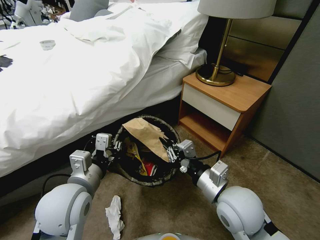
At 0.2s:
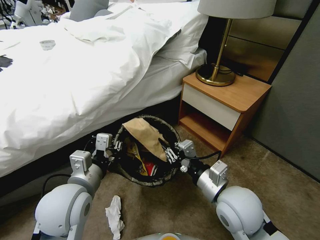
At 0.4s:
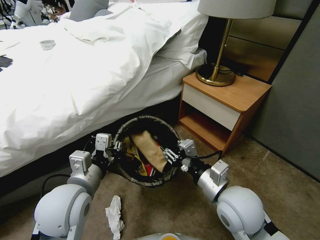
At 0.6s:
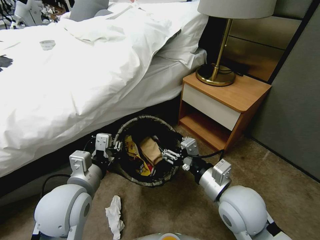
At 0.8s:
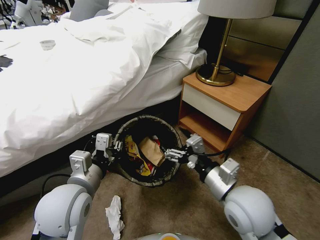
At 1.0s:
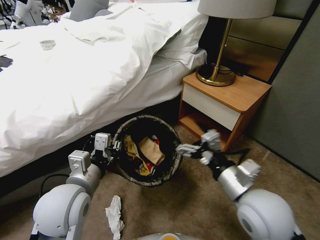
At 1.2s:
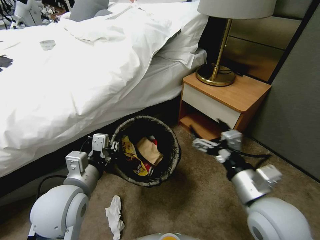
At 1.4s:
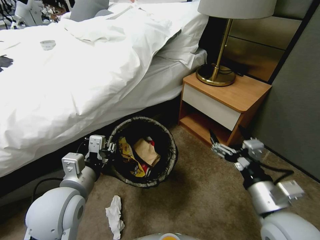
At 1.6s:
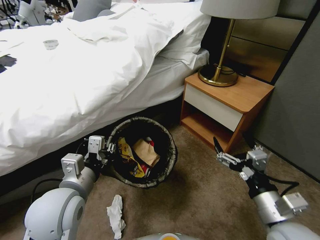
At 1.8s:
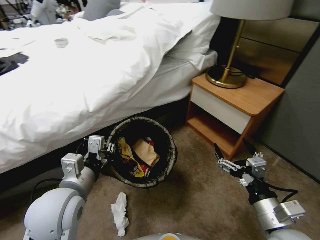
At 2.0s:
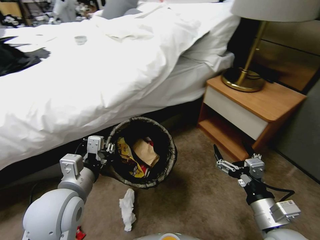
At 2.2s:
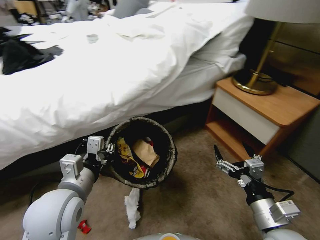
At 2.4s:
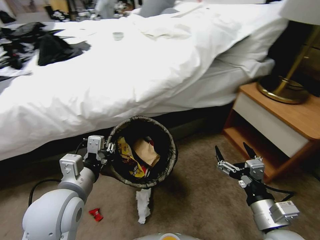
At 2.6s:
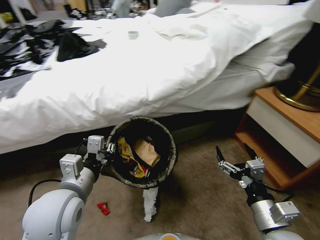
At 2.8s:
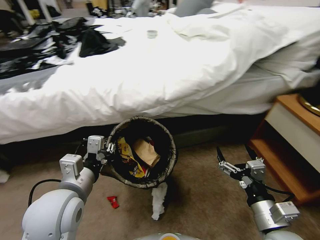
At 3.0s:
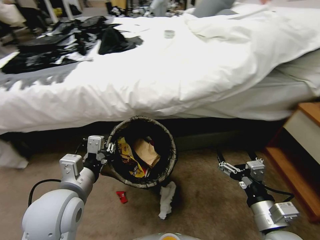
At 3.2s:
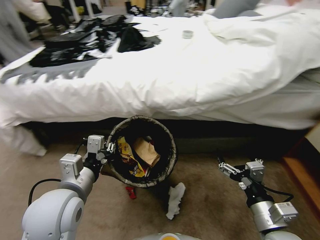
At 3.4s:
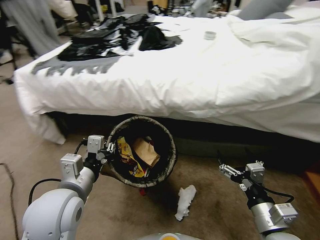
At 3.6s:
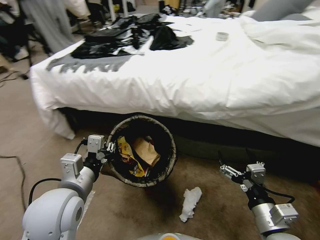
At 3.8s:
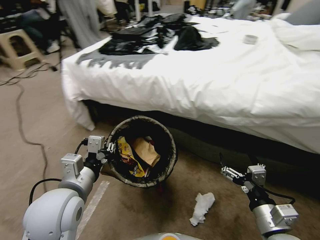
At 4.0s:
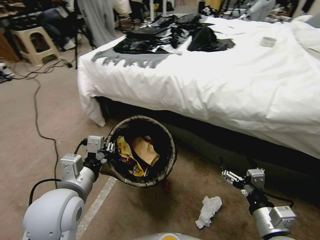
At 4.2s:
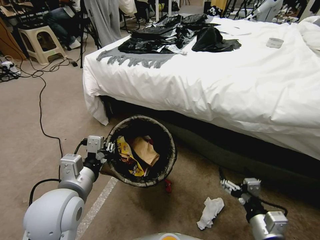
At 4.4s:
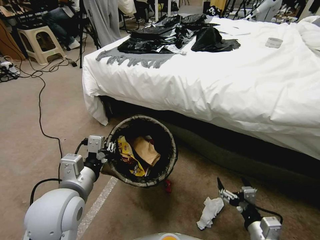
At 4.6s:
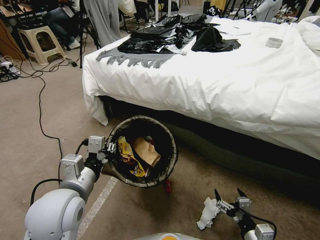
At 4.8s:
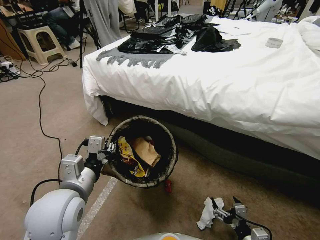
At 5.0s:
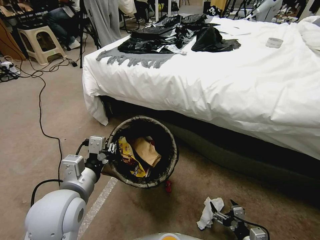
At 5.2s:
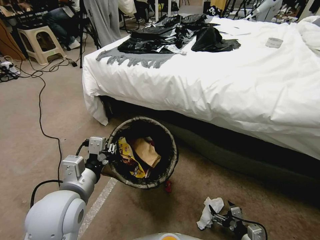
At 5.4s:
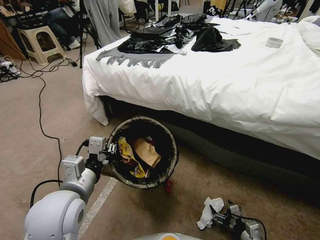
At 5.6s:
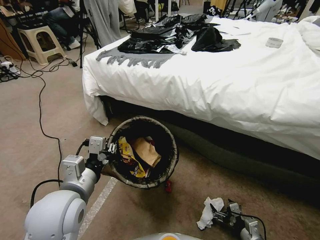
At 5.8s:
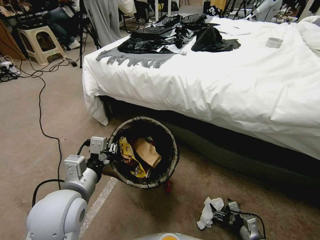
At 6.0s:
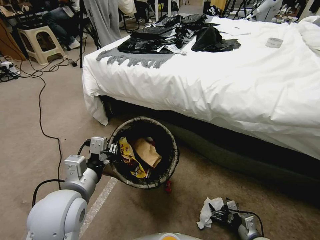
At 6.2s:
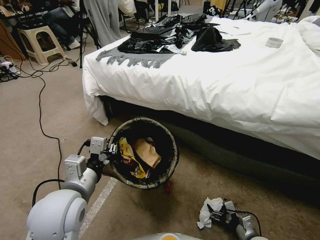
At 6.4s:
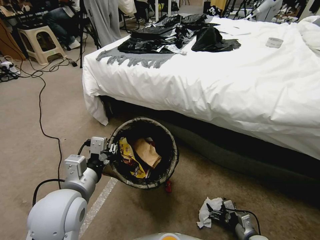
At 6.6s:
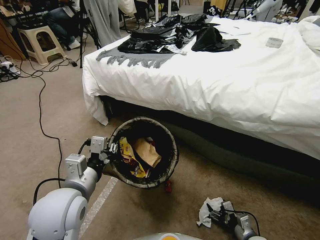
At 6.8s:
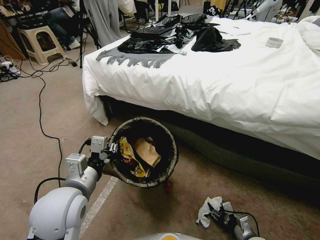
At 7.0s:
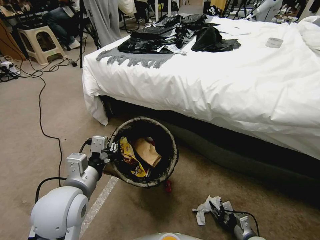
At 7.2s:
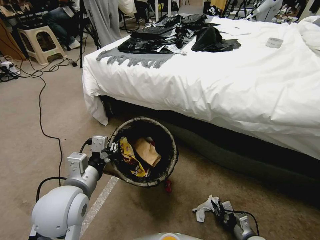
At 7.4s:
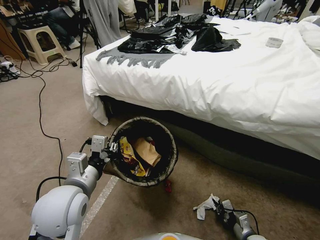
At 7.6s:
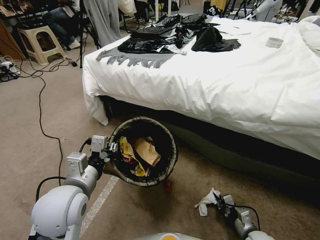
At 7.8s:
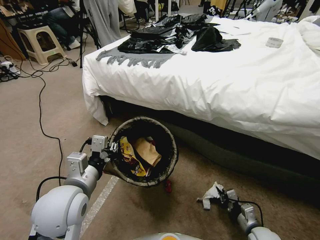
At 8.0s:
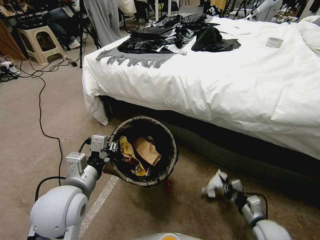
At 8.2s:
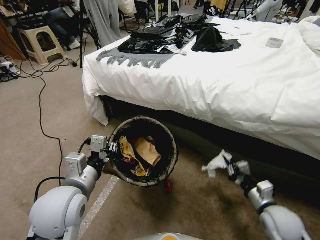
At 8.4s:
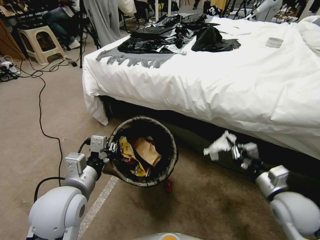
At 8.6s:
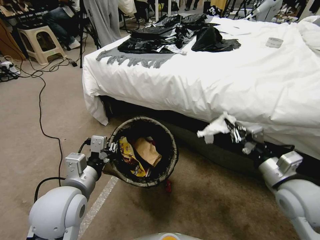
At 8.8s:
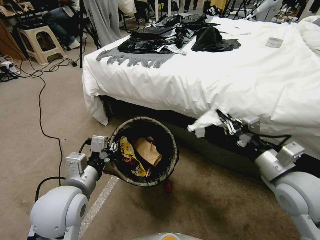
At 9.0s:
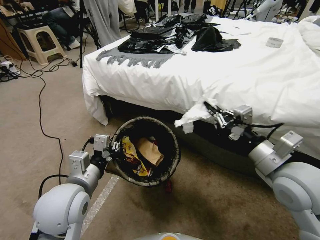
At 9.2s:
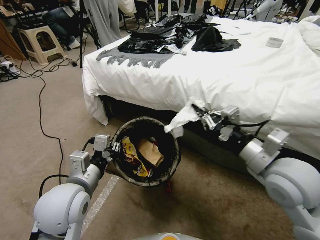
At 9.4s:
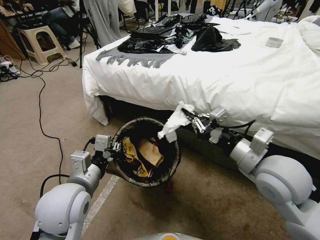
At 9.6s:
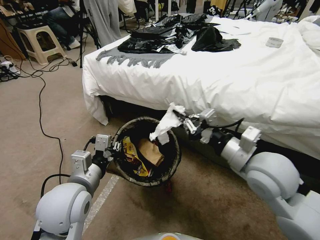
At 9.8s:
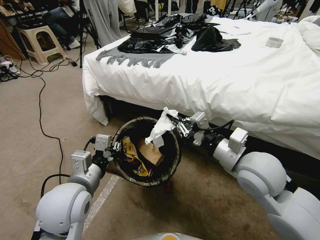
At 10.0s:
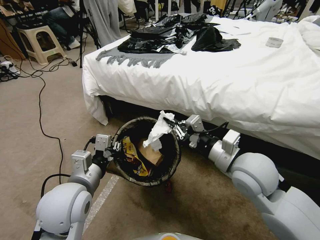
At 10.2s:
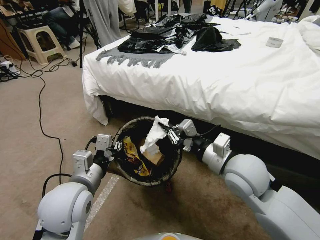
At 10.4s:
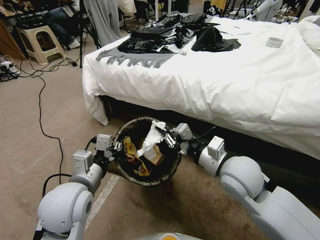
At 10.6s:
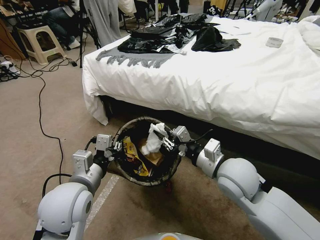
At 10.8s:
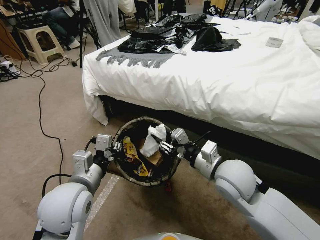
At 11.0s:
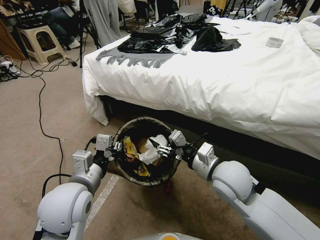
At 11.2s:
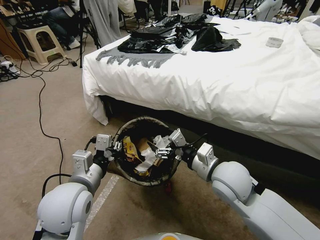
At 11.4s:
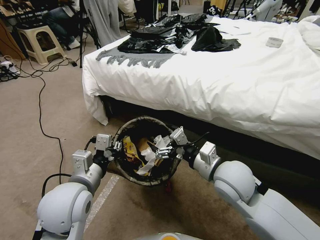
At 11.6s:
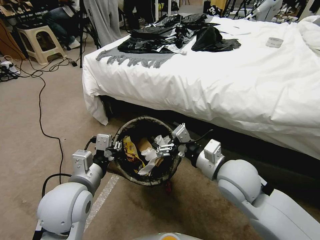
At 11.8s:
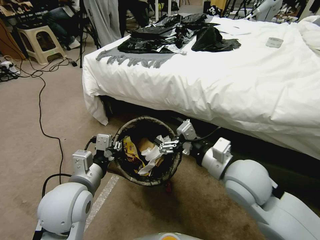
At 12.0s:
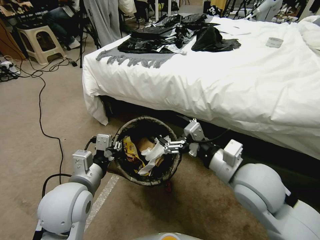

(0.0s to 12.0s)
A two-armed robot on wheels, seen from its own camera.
Task of the whole recording: Pick up the trash bin, then pick up the garbage from the floor and place it into the trash bin.
0.0s - 1.6s: The right gripper shifts about 15 cm to the right and backward, and opens up.
3.0s - 4.4s: The right gripper travels downward by some 10 cm.
4.4s - 6.0s: The right gripper goes roughly 15 cm downward.
6.0s - 7.6s: The right gripper closes.
7.6s - 9.0s: The right gripper heads upward, covering some 40 cm.
9.0s - 10.4s: The right gripper goes about 10 cm to the left.
10.4s - 12.0s: The right gripper opens.

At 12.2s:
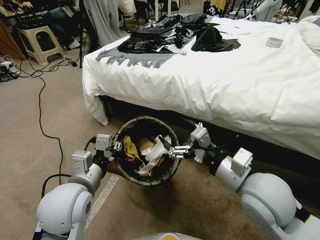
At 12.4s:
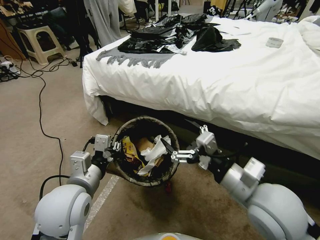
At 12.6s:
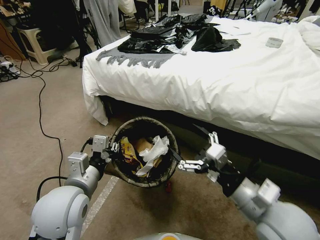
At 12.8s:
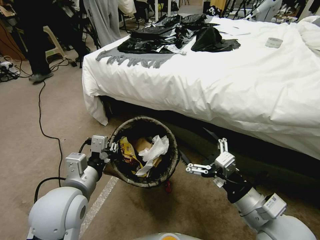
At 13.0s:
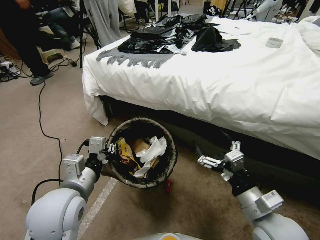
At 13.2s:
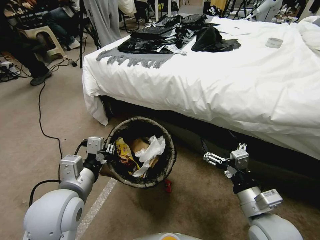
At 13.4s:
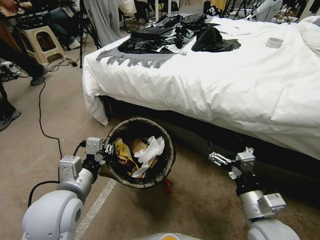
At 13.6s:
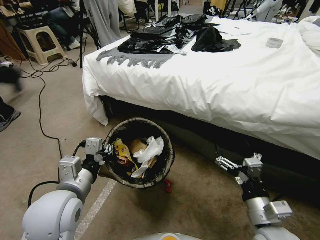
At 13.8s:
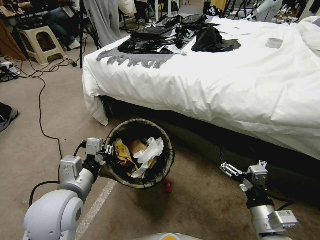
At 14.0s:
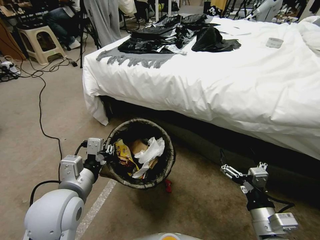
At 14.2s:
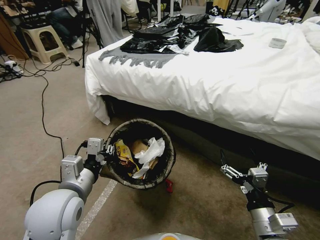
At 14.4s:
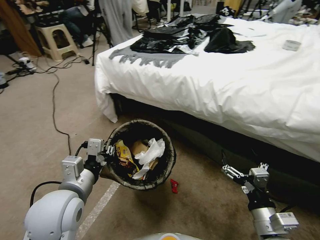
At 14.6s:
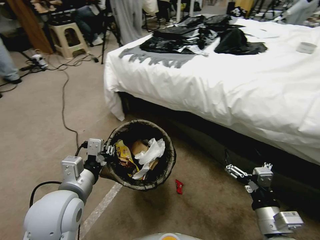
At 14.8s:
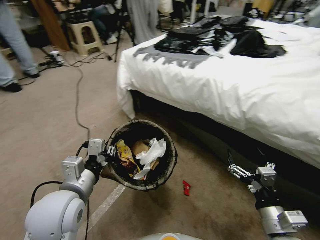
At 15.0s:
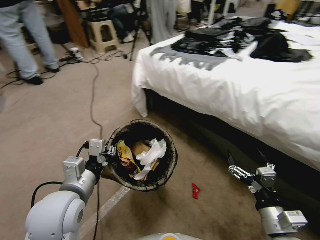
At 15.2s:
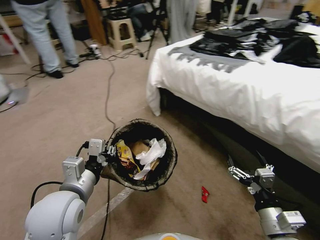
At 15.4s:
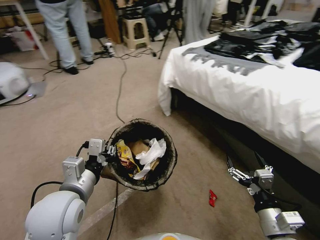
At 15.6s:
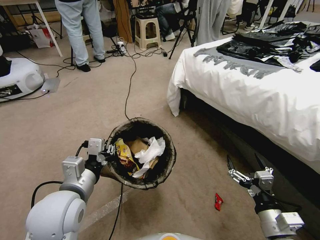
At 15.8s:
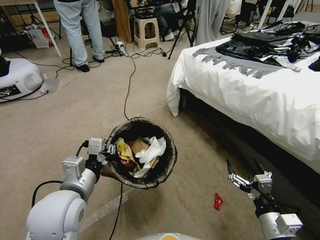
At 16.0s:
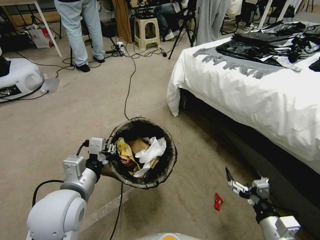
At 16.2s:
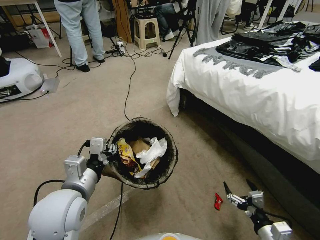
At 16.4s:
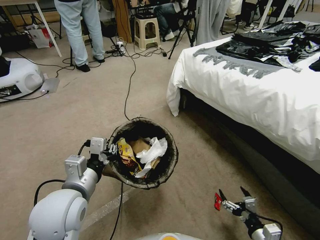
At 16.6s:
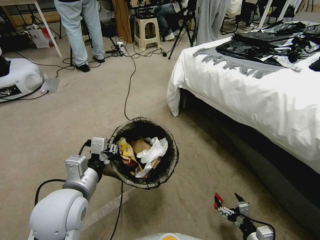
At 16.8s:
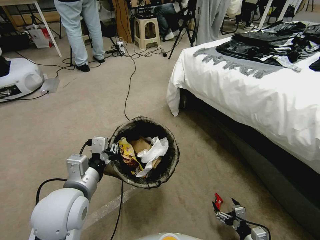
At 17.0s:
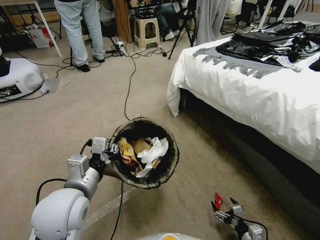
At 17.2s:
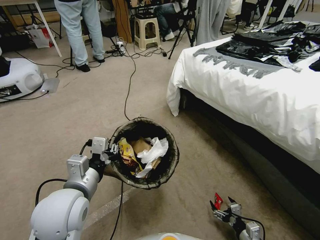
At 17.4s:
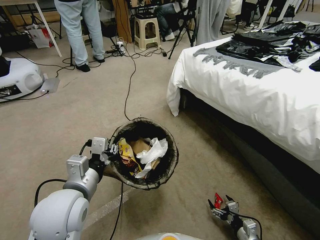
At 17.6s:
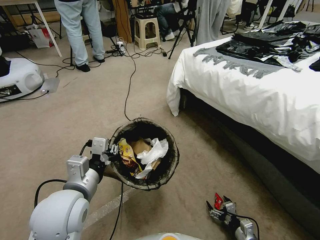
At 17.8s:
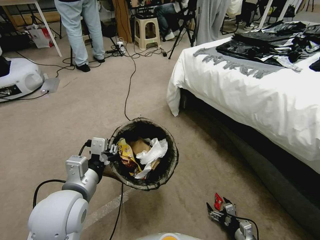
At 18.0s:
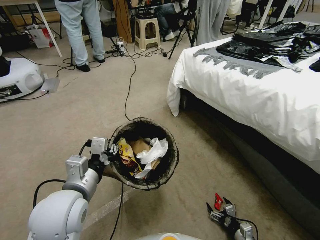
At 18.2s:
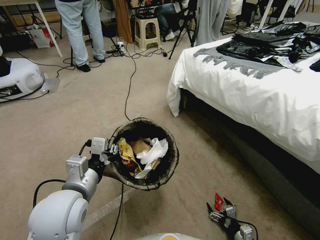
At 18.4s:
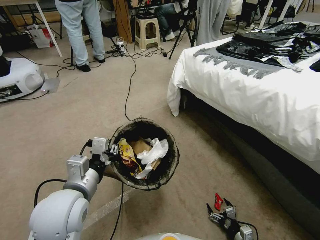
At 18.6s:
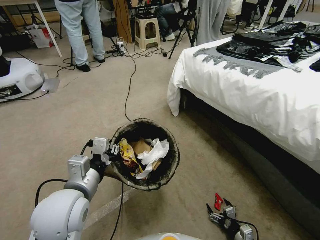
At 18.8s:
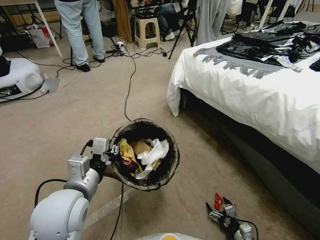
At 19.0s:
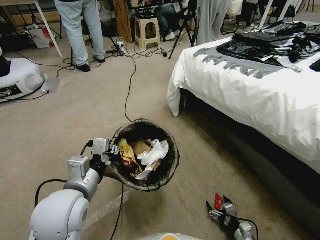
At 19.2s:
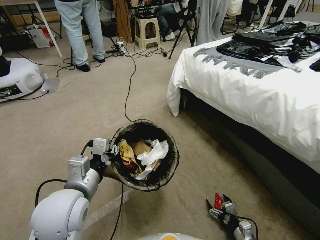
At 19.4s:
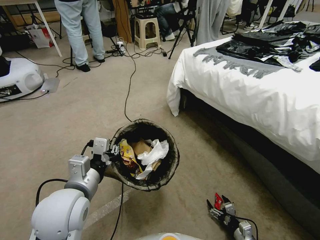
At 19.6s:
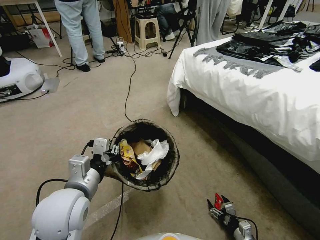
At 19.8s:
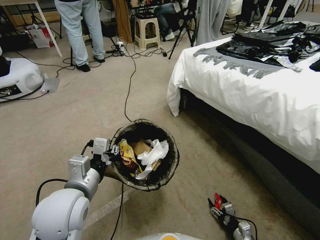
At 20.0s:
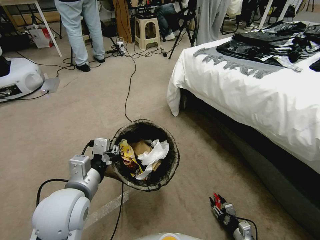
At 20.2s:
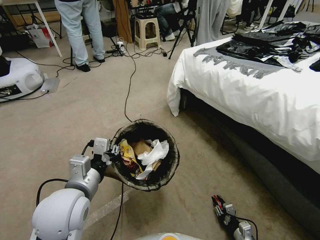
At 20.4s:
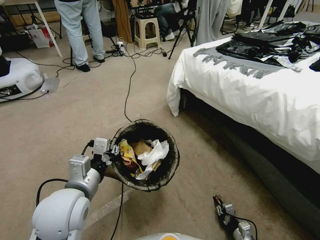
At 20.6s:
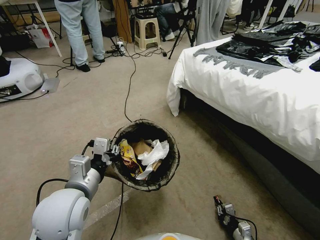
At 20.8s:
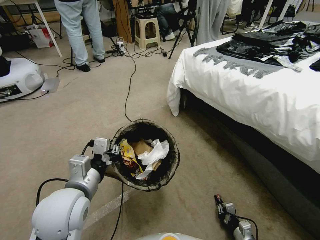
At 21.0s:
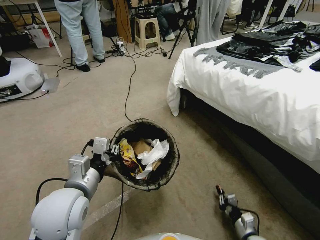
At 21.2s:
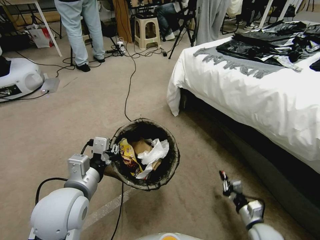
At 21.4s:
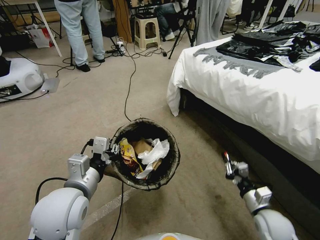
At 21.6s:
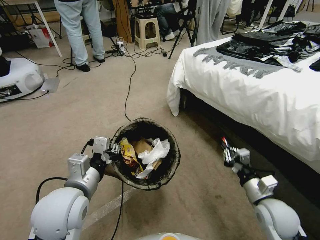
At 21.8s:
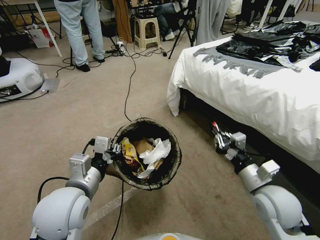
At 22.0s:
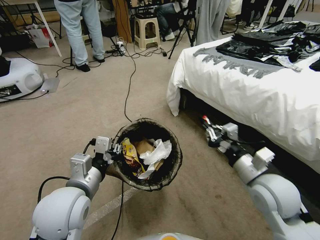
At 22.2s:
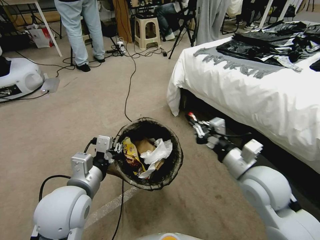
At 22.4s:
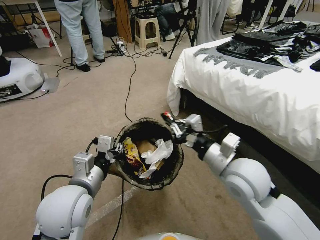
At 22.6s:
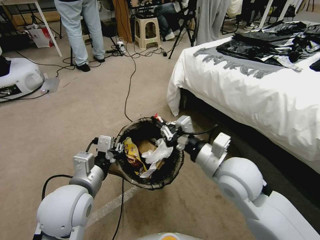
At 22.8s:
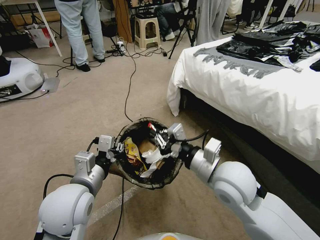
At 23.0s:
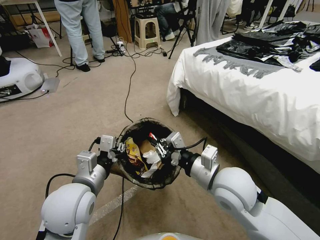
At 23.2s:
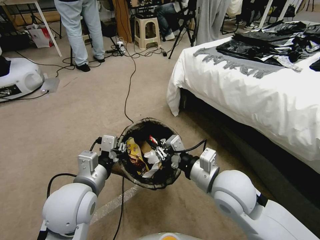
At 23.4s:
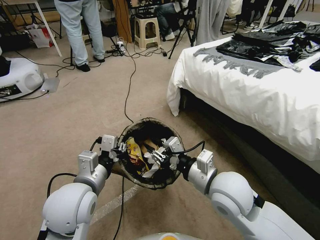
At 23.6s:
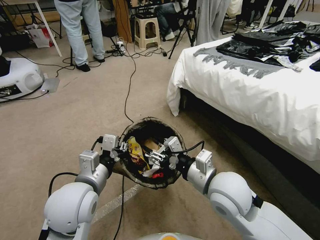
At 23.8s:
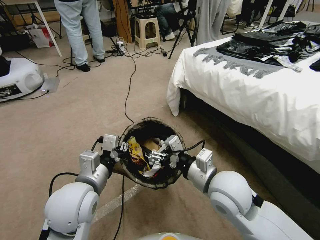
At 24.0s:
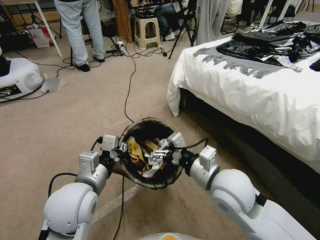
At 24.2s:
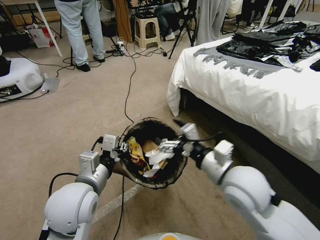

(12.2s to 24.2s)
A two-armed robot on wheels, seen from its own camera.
Task of the whole recording: Pick up the trash bin, then pick up the garbage from the floor and place it into the trash bin.
12.2s - 13.8s: The right gripper goes some 15 cm downward, backward and to the right.
15.2s - 16.6s: The right gripper is displaced downward by some 15 cm.
16.6s - 18.2s: The right gripper heads downward, covering some 15 cm.
18.2s - 19.8s: There are only small adjustments of the grippers.
19.8s - 21.2s: The right gripper is displaced upward by some 10 cm, and closes up.
21.2s - 22.6s: The right gripper heads upward and to the left, covering some 40 cm.
22.6s - 24.2s: The right gripper opens its fingers.
